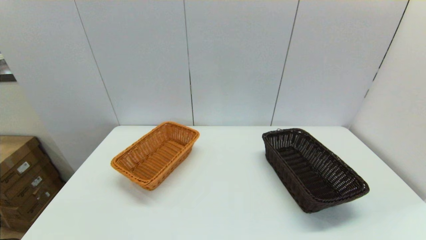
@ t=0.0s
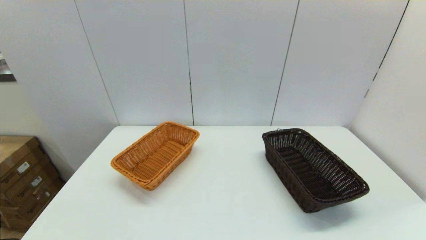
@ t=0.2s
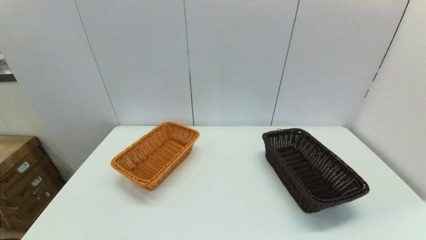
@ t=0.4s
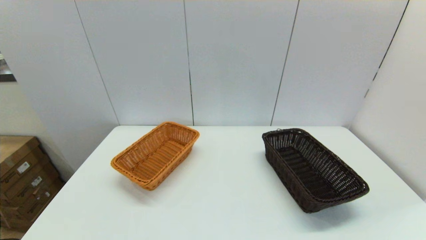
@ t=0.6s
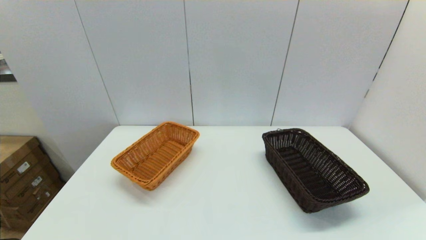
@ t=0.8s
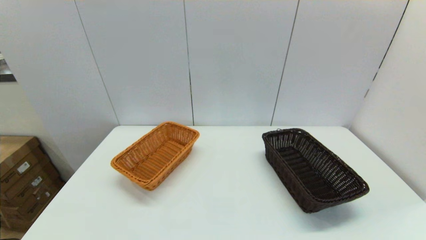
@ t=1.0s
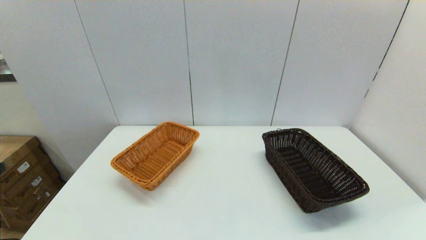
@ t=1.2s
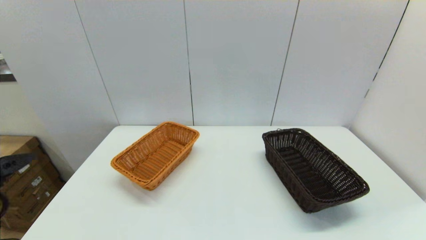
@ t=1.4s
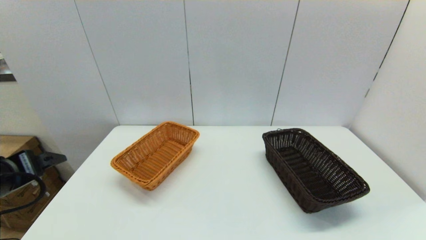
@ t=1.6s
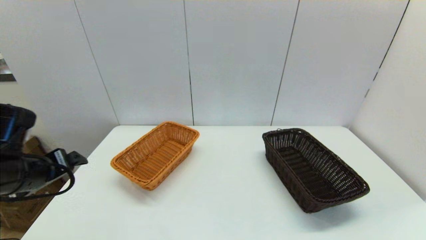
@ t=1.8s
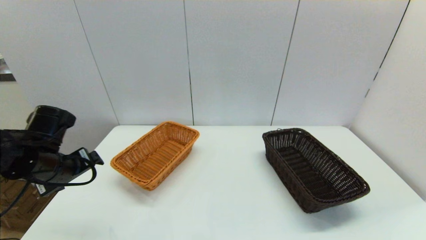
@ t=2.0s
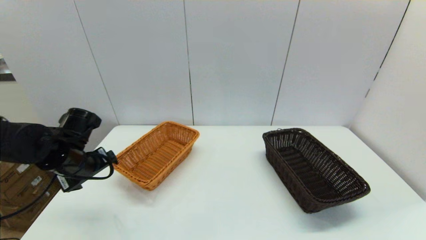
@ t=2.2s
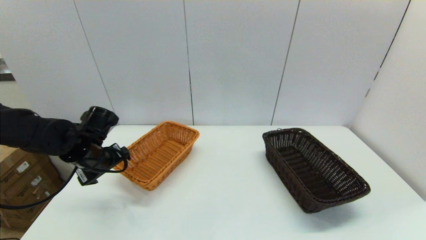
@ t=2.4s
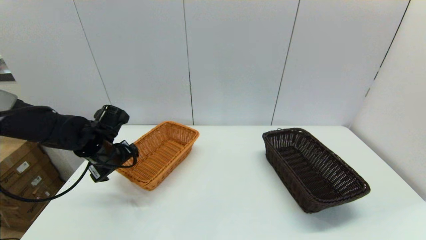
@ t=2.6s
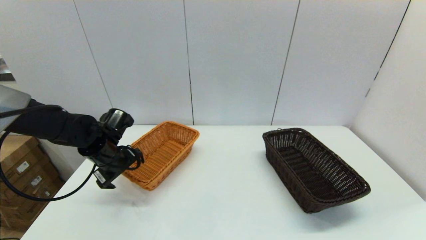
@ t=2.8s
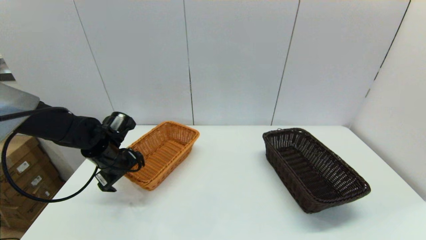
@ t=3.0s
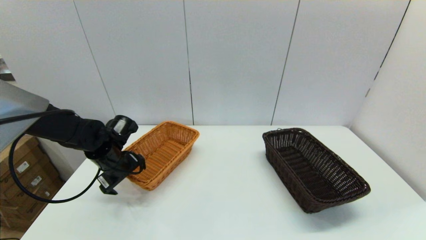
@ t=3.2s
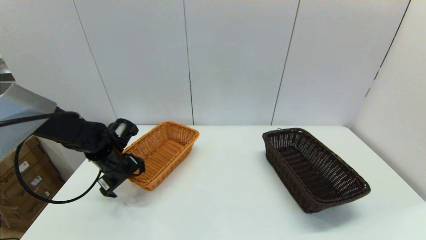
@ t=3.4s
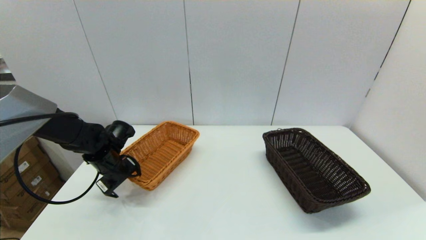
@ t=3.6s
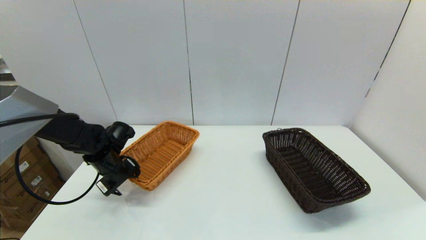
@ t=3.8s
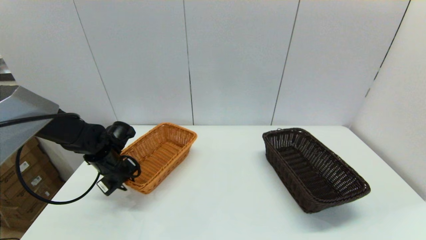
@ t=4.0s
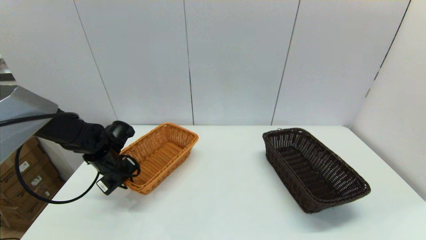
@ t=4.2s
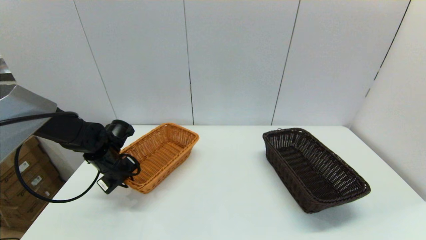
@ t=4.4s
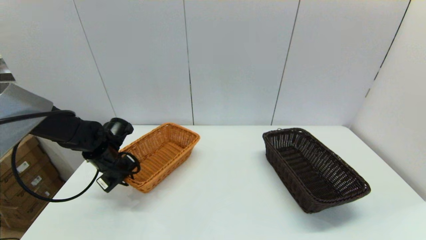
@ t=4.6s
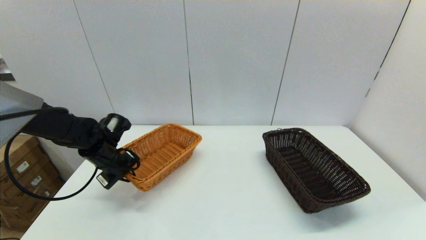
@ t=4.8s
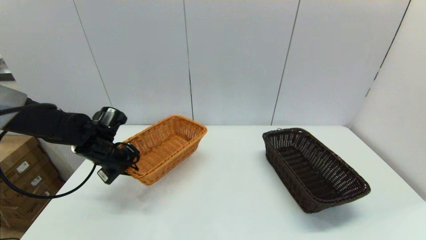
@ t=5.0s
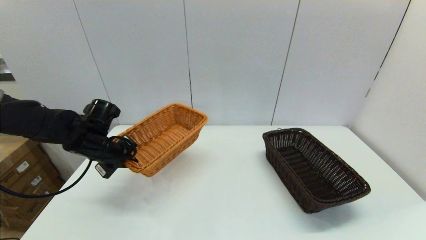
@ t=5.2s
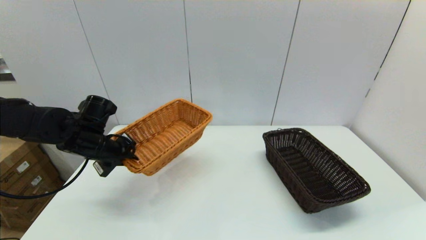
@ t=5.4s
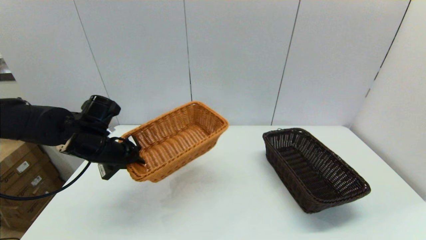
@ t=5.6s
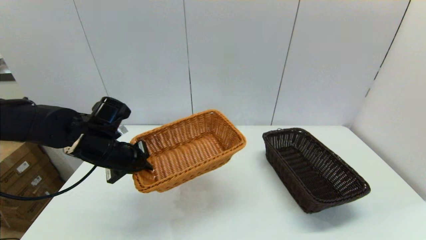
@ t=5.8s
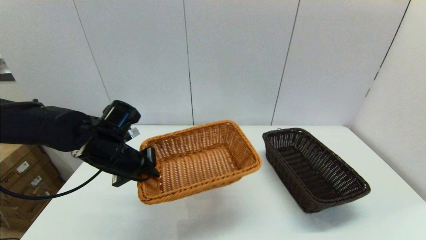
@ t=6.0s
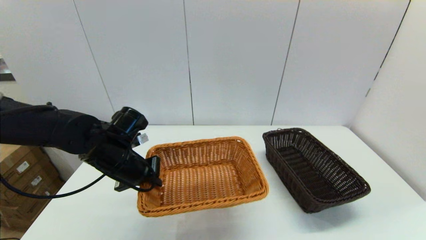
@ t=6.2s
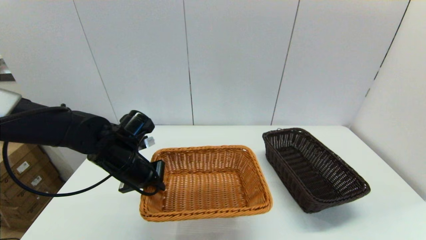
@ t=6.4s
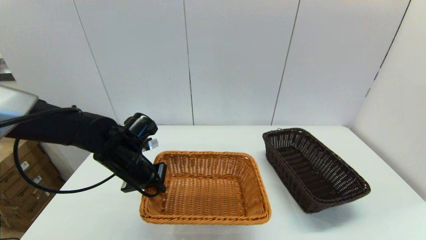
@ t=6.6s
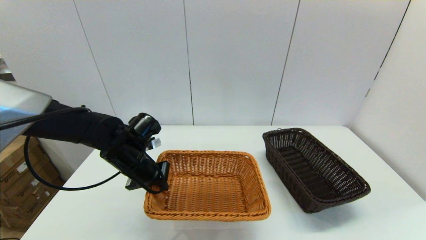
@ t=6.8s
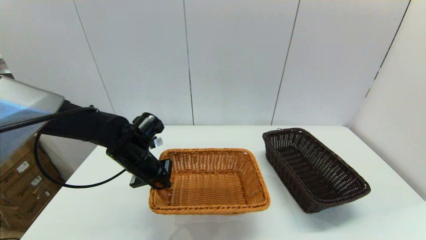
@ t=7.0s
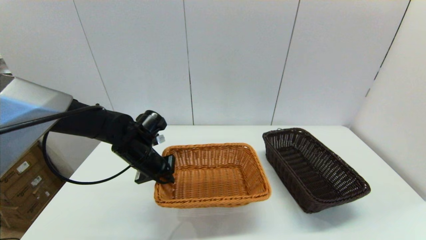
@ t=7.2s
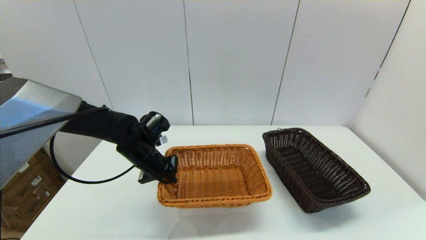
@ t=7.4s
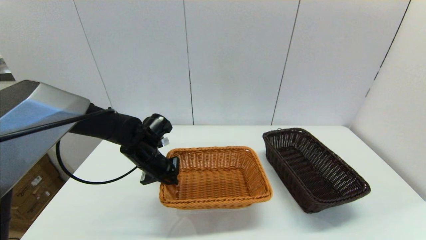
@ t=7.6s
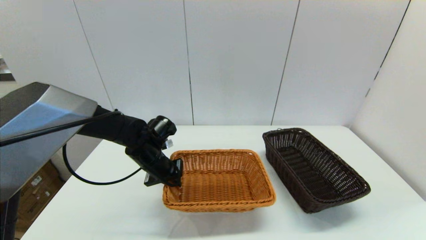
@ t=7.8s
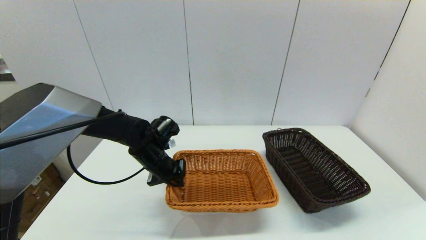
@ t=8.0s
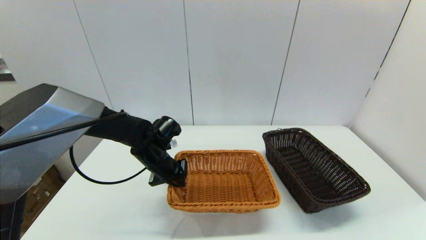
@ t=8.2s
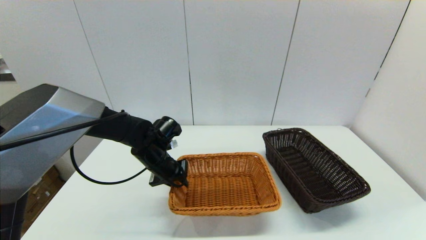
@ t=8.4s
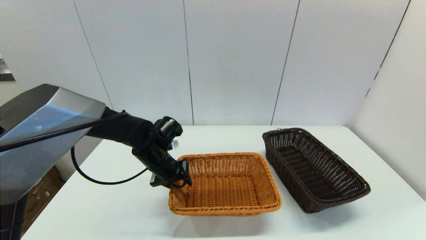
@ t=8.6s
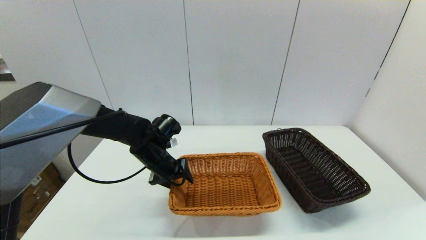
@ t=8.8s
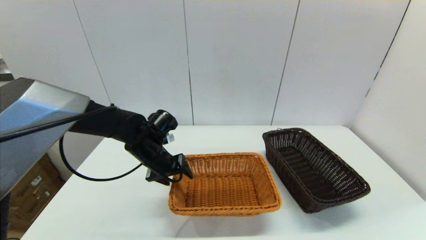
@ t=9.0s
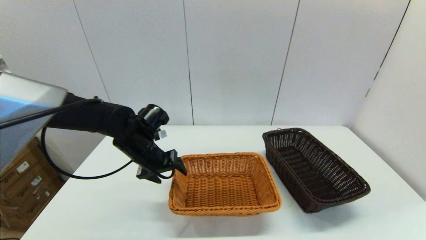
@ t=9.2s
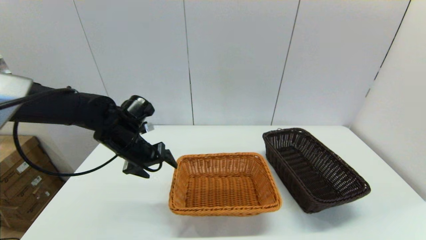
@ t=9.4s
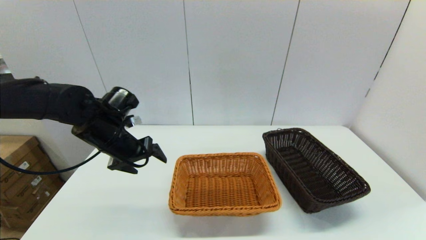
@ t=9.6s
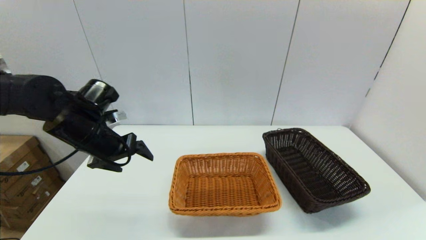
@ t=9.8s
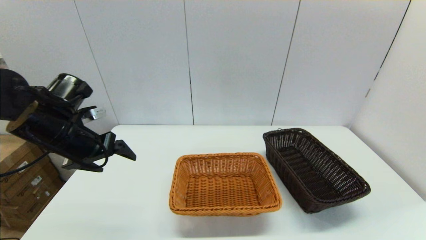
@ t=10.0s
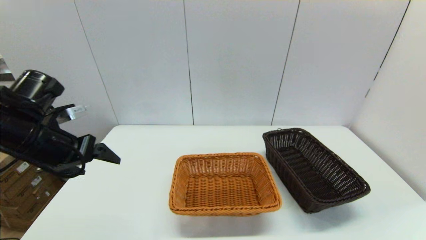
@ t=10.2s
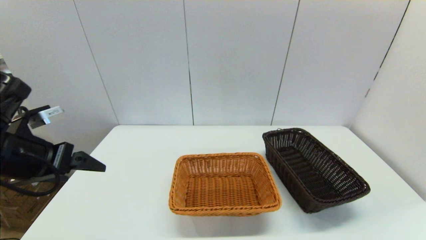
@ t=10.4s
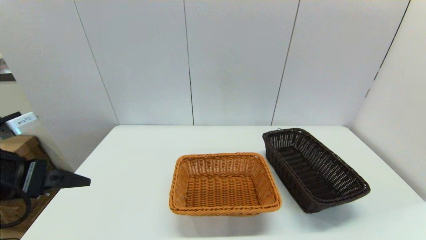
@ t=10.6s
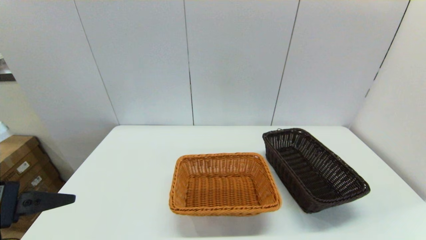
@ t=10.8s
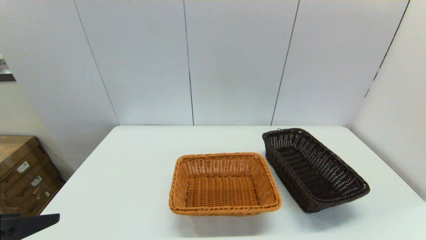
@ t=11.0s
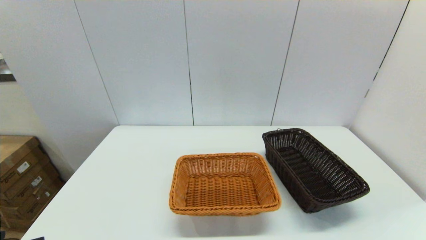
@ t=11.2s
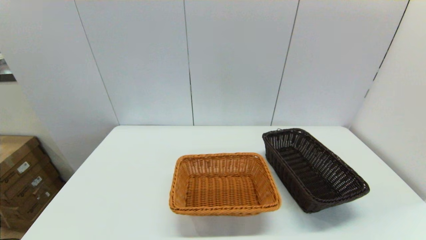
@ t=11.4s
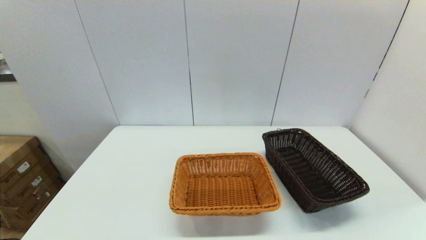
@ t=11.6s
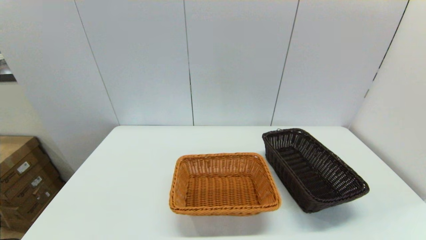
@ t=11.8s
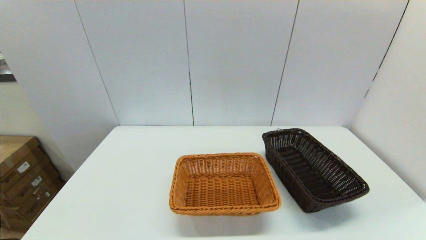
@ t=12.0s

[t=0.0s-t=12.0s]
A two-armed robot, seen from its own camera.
Task of the whole recording: stack a basket on top of another basket.
Step, t=1.2s to t=4.8s: Grasp the light basket with the left gripper.
Step, t=5.2s to t=9.6s: Place the light basket on the middle of the table with the left gripper.
t=0.0s to t=1.6s: The left gripper heads forward and upward, covering about 20 cm.
t=1.6s to t=3.0s: The left gripper goes roughly 20 cm forward and downward.
t=3.0s to t=4.4s: The left gripper closes up.
t=4.4s to t=6.0s: The left gripper travels upward, to the right and backward by some 10 cm.
t=6.0s to t=7.6s: The left gripper heads downward and forward, covering roughly 10 cm.
t=7.6s to t=9.0s: The left gripper opens its fingers.
t=9.0s to t=10.4s: The left gripper is displaced to the left, backward and upward by some 25 cm.
t=10.4s to t=12.0s: The left gripper shifts about 30 cm backward.

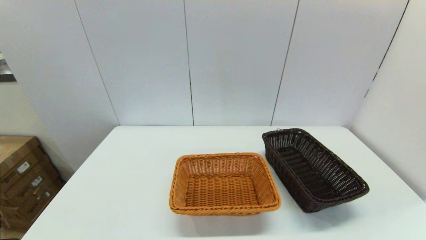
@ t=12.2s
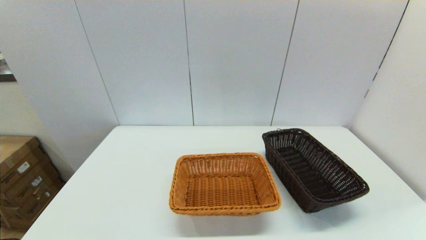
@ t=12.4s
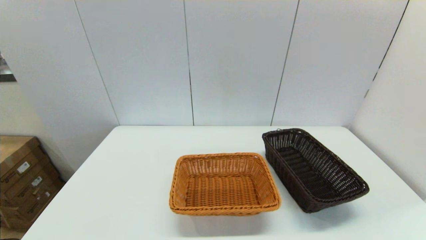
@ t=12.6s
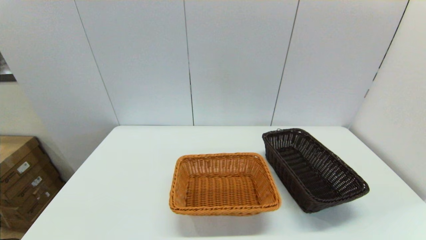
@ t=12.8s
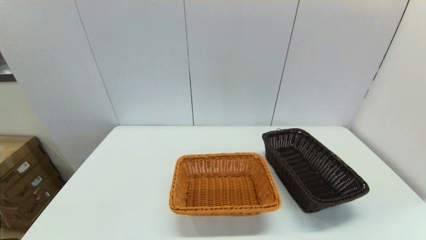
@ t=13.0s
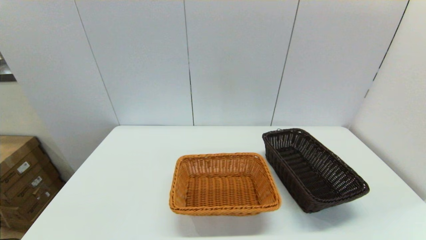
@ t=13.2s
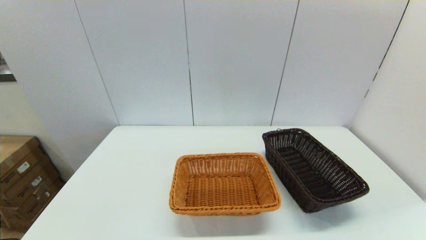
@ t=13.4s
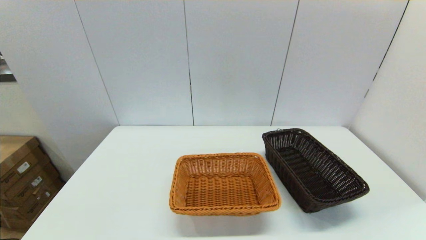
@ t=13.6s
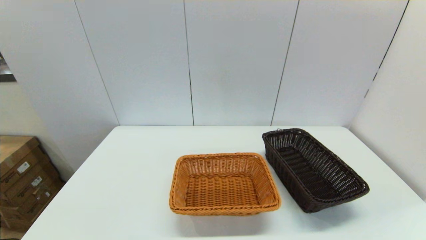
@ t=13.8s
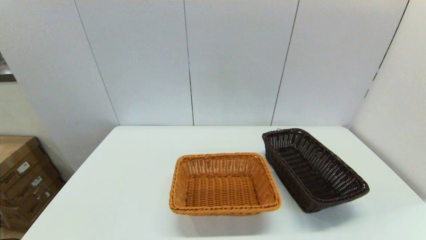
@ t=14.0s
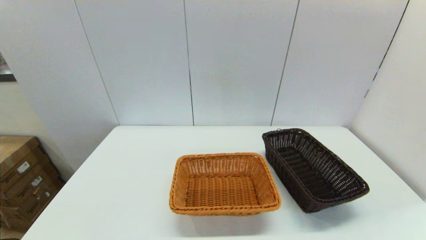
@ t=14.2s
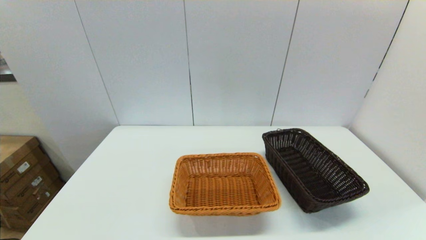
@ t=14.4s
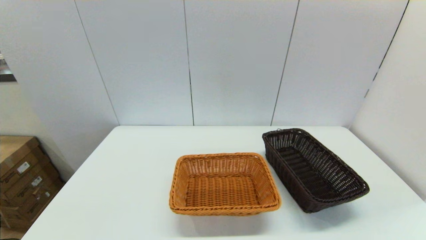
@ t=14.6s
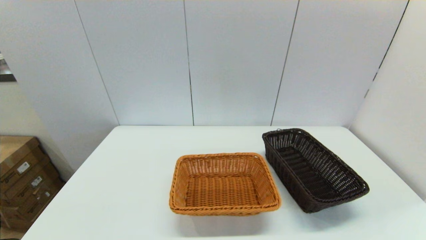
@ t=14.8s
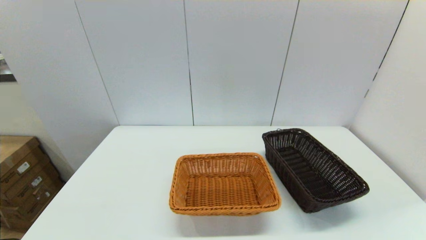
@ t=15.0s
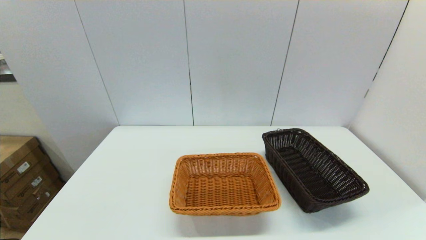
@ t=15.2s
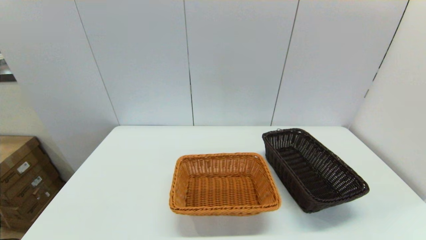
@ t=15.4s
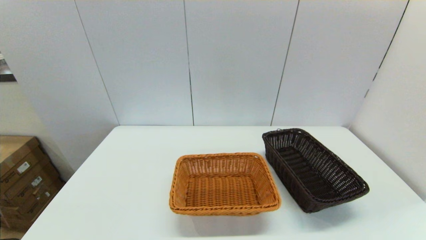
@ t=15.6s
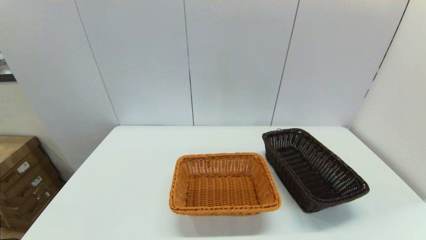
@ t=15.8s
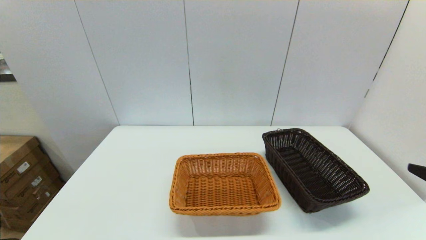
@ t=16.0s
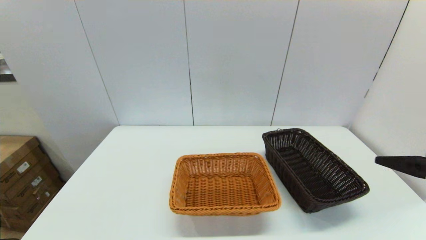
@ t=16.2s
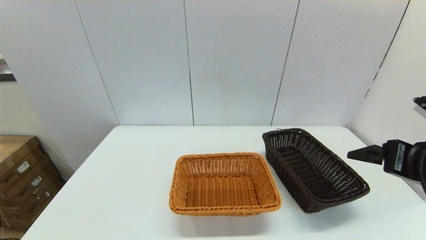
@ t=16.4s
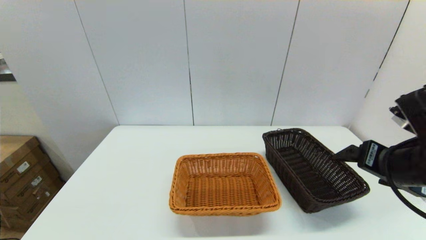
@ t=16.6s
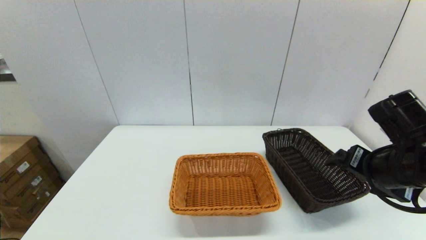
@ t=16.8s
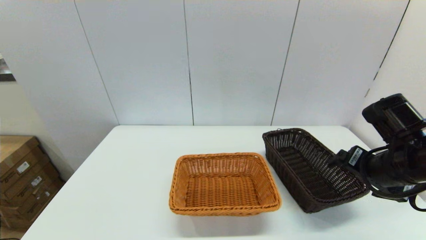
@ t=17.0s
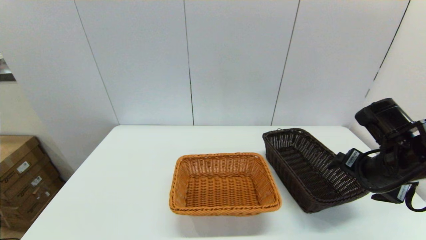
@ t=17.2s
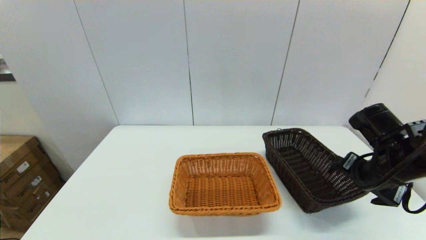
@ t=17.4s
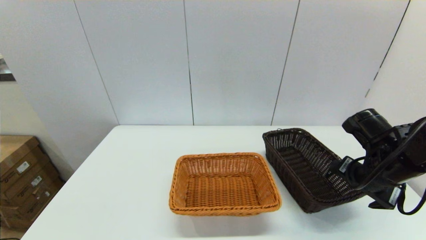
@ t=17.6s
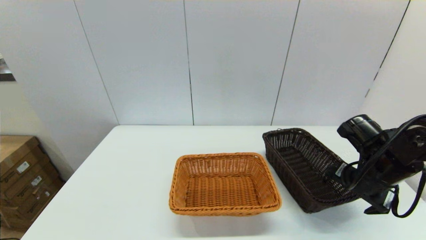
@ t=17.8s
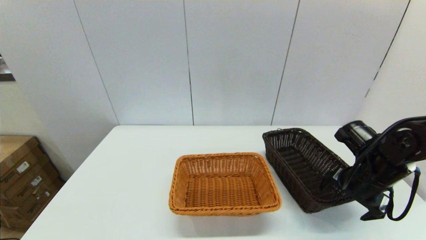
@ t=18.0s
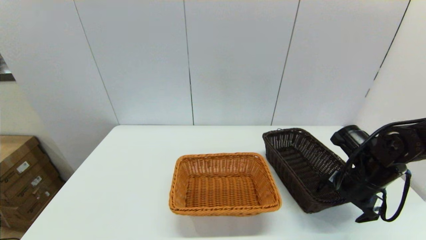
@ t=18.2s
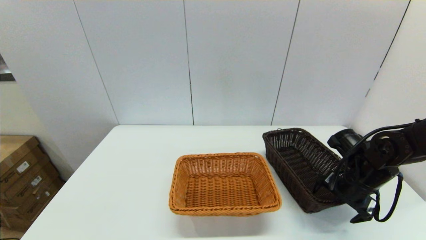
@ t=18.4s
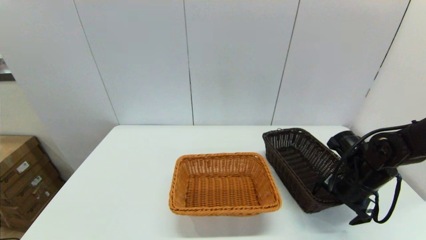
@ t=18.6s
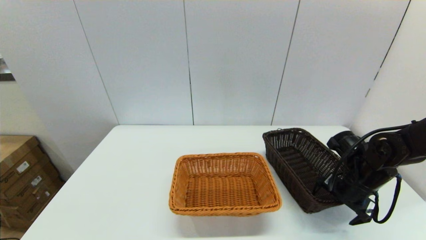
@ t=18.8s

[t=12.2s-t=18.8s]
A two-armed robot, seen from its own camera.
Task of the whole recording: stack a basket on top of another basket.
t=15.4s to t=17.2s: The right gripper shifts roughly 25 cm forward.
t=17.2s to t=18.8s: The right gripper travels downward and forward by about 10 cm.
